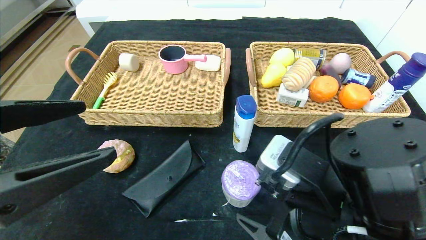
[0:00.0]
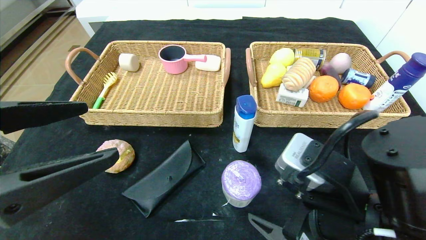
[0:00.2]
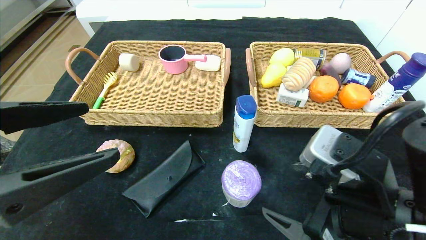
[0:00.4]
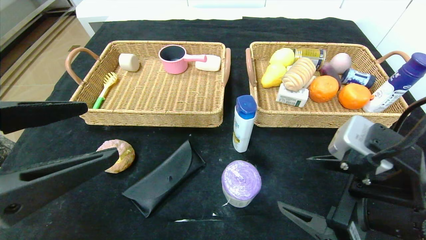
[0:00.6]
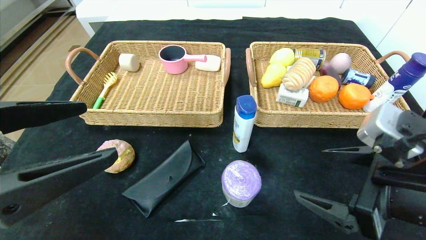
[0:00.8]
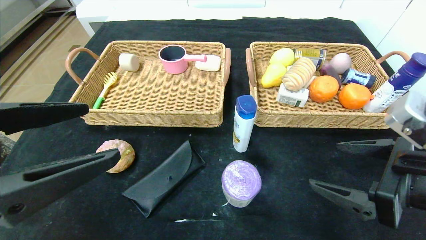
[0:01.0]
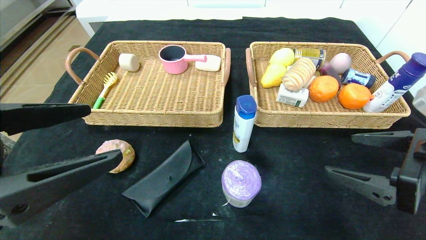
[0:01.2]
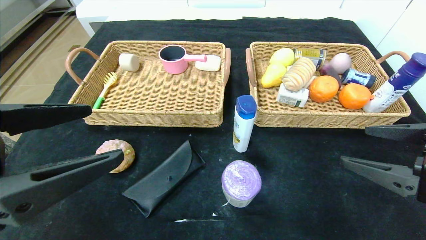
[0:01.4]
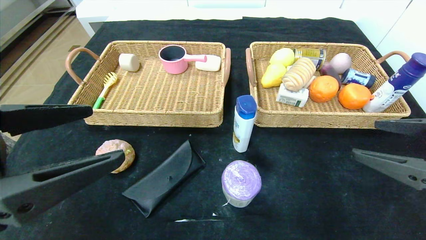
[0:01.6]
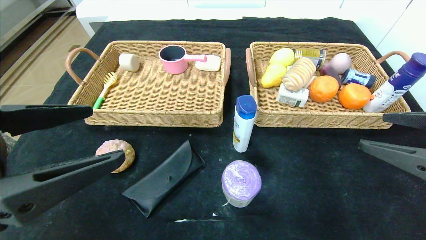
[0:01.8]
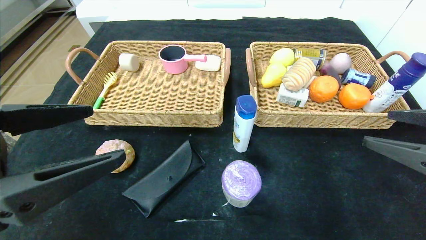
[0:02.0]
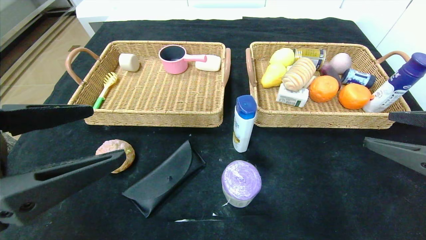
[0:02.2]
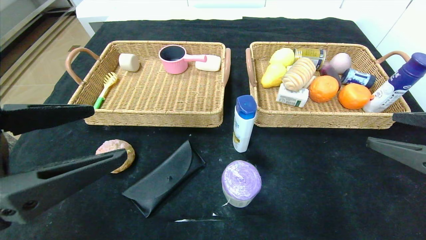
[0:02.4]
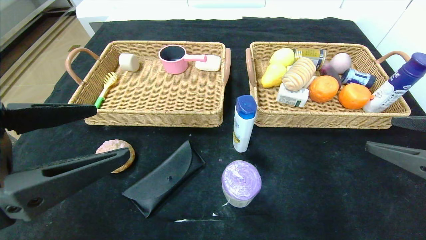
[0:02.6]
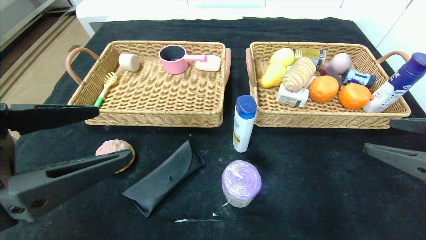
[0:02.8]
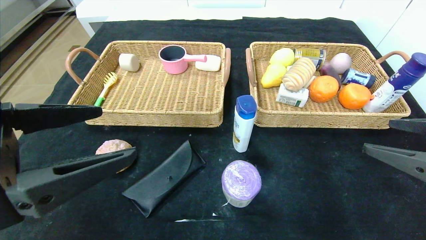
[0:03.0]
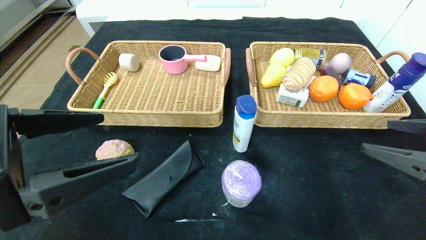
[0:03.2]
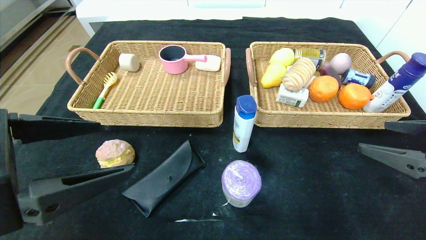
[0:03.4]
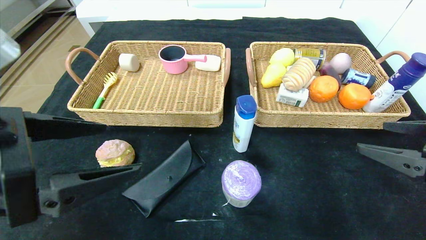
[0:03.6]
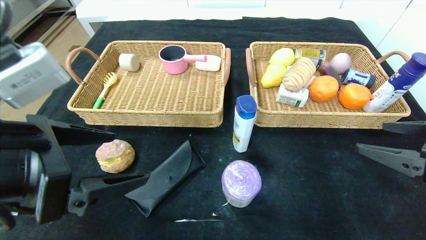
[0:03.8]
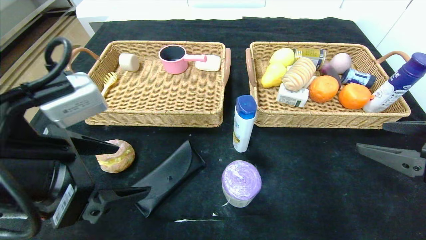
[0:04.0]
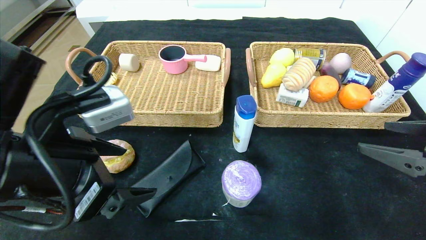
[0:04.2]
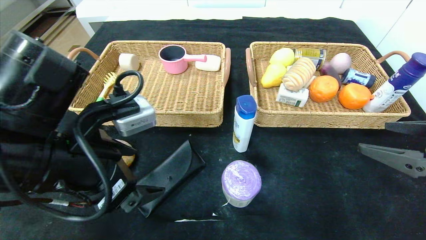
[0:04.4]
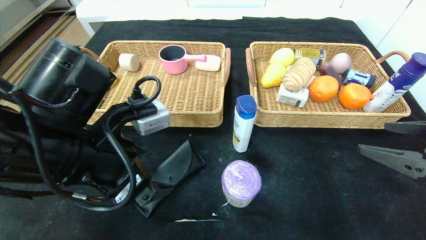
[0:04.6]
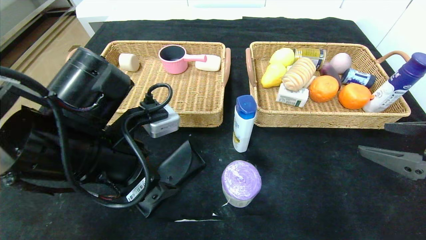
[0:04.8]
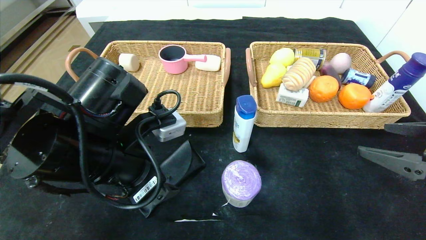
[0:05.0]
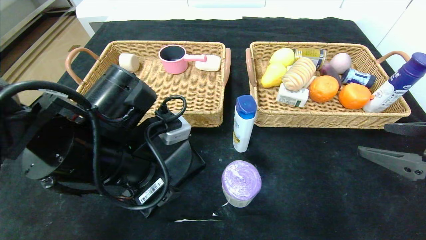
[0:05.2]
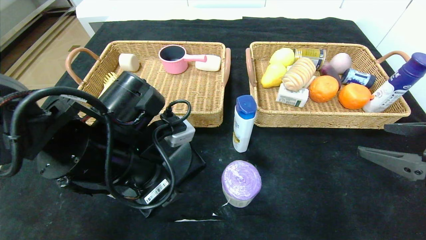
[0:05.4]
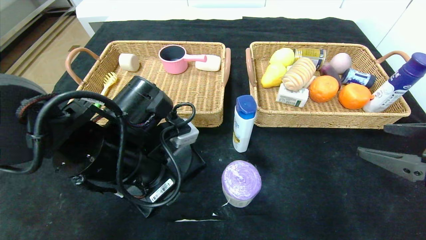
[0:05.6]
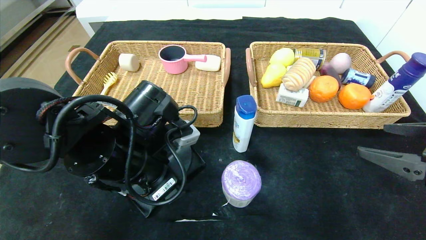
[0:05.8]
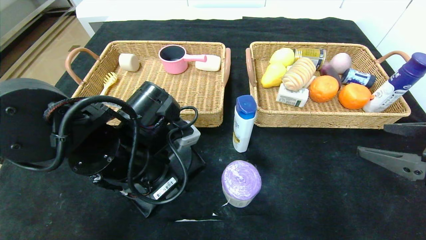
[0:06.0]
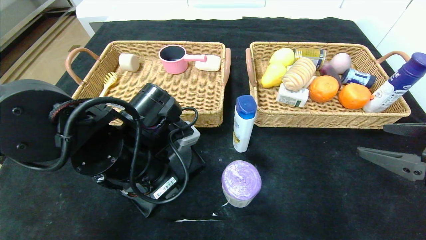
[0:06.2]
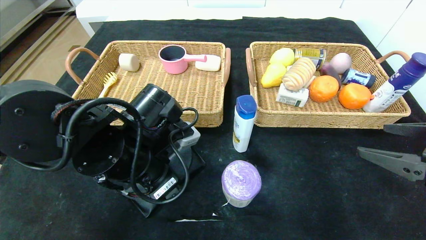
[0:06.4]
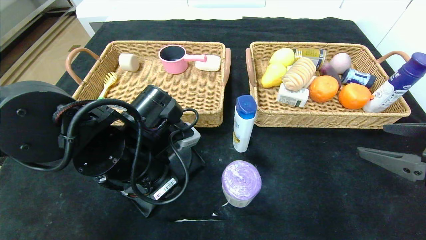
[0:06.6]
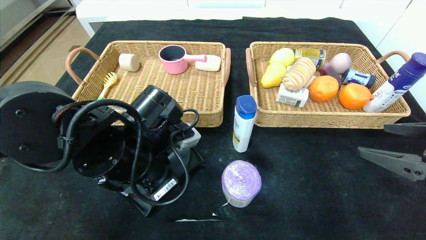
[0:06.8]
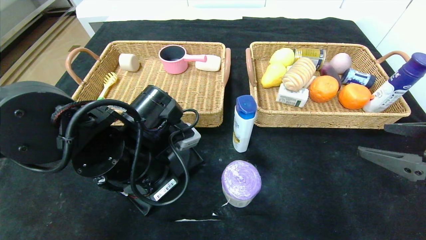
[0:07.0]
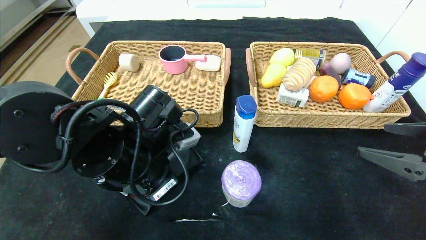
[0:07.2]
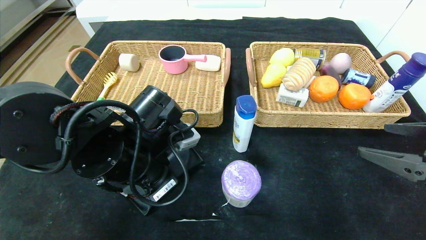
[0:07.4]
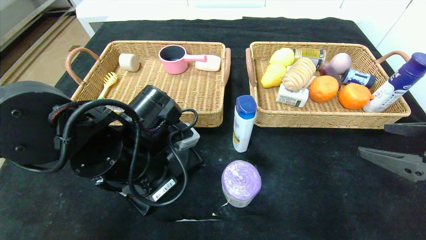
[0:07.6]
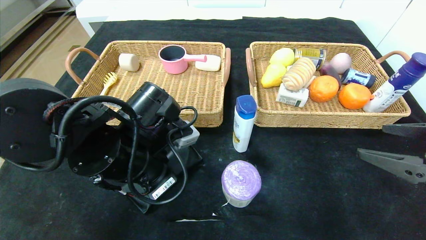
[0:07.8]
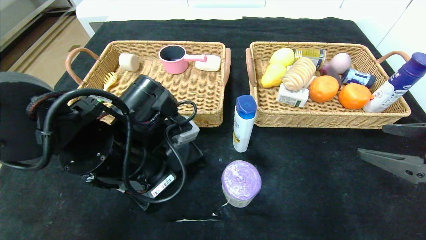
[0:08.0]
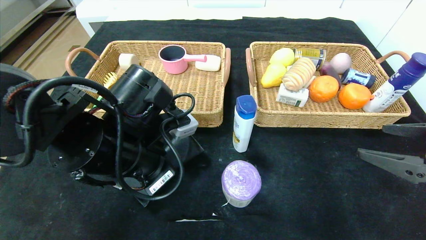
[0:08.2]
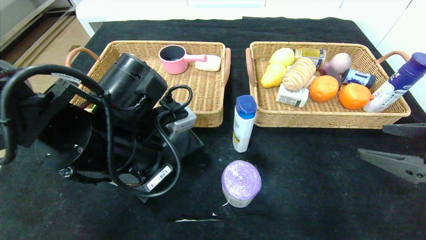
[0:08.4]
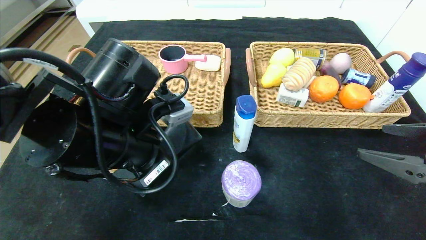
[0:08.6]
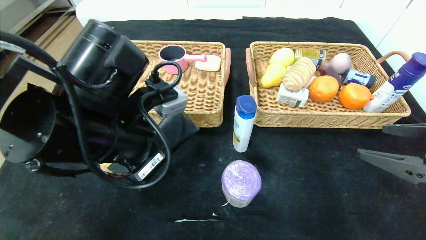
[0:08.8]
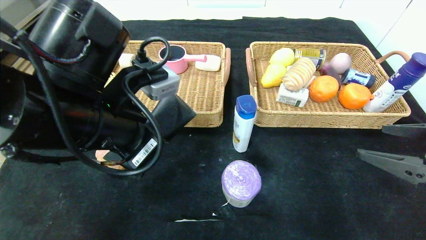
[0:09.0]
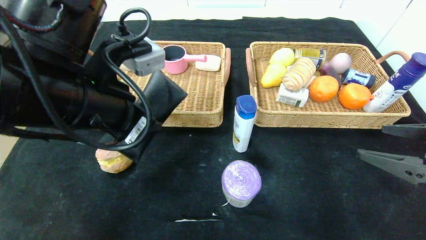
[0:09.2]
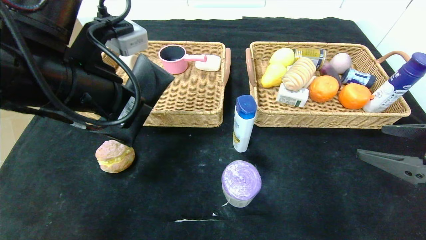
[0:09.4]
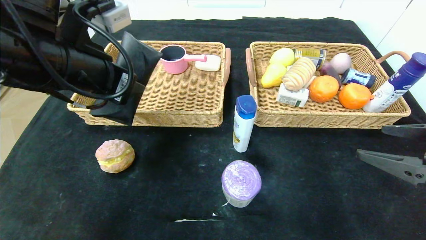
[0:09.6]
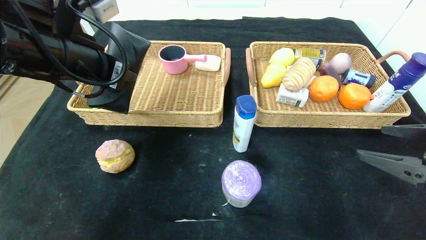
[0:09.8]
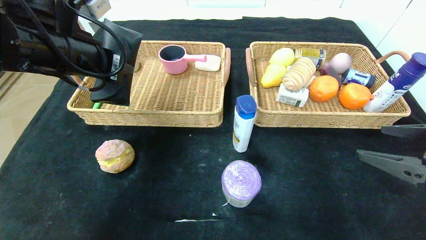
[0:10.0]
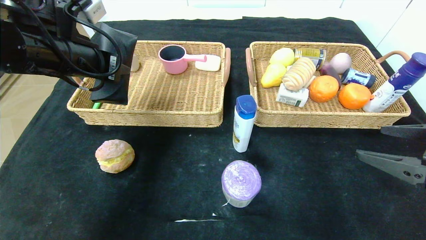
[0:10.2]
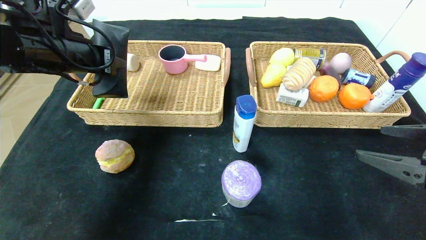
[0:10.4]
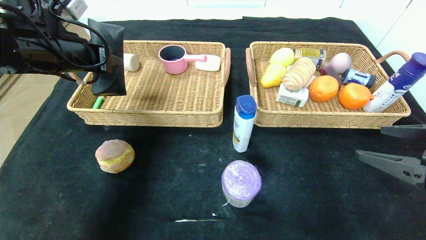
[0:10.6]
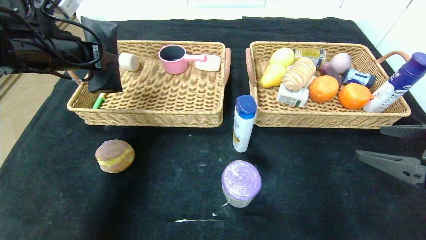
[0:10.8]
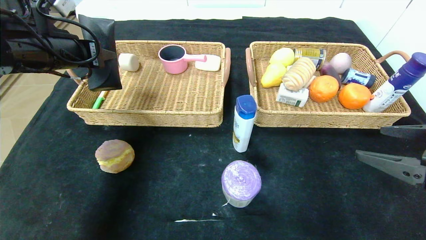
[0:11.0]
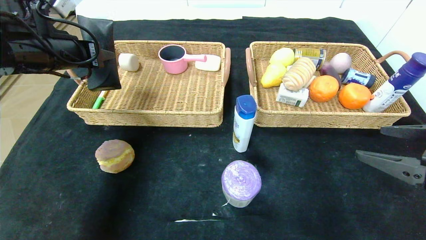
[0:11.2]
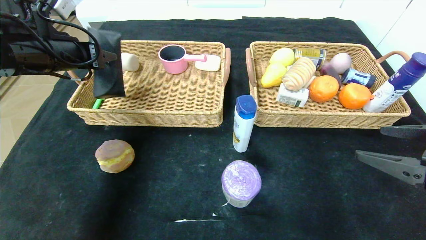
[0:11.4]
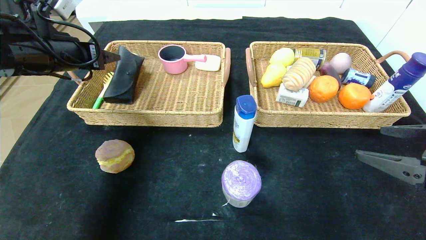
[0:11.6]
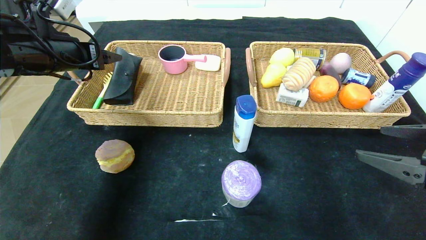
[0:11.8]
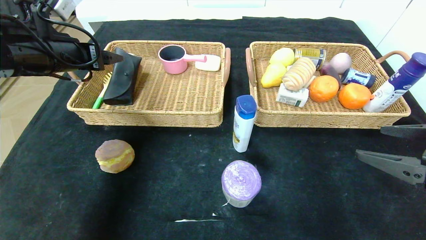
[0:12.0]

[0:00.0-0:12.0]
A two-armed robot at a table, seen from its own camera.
0:00.0 to 0:01.6: The right gripper is displaced to the right by some 15 cm.
0:01.6 to 0:03.0: The grippers make only small movements.
0:03.0 to 0:04.4: The left gripper moves forward, about 5 cm.
0:04.4 to 0:06.0: The left gripper moves forward, approximately 5 cm.
0:06.0 to 0:07.6: The left gripper closes.
0:07.6 to 0:09.0: The left gripper goes some 10 cm upward.
0:09.0 to 0:10.4: The left gripper moves forward and to the left, some 15 cm.
0:10.4 to 0:12.0: The left gripper opens up.

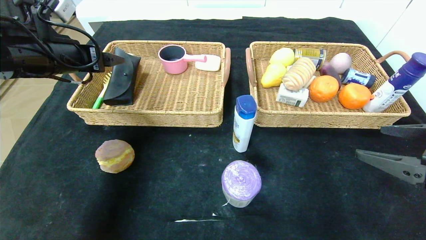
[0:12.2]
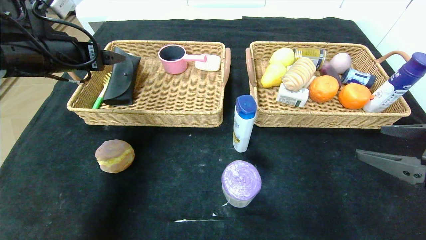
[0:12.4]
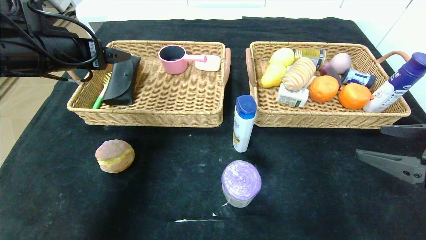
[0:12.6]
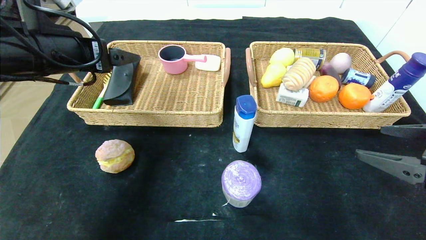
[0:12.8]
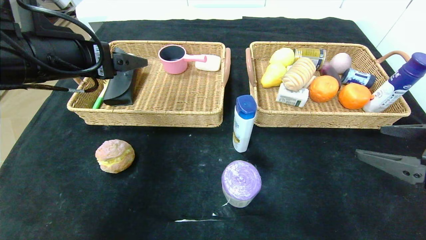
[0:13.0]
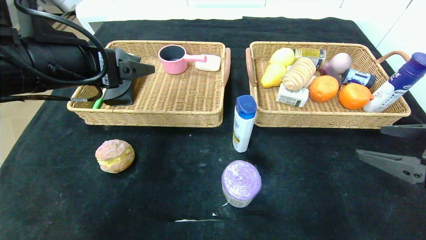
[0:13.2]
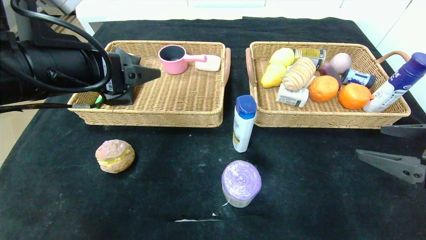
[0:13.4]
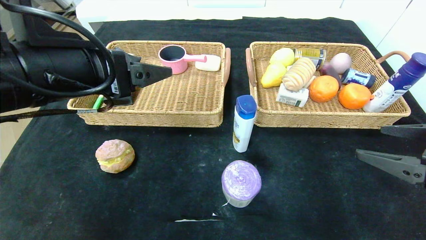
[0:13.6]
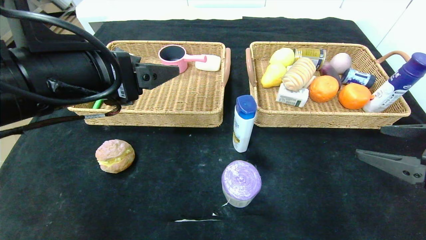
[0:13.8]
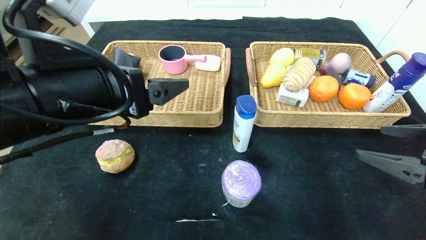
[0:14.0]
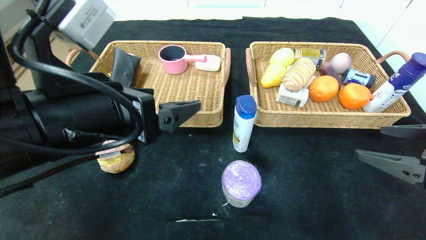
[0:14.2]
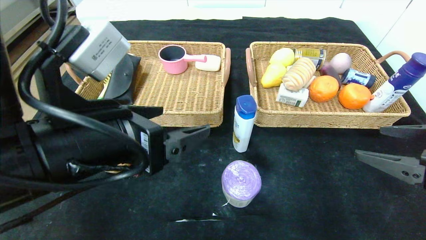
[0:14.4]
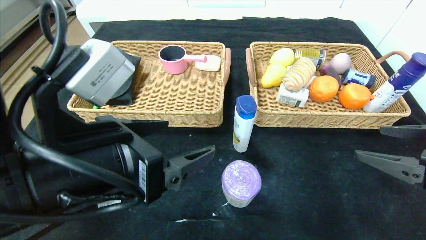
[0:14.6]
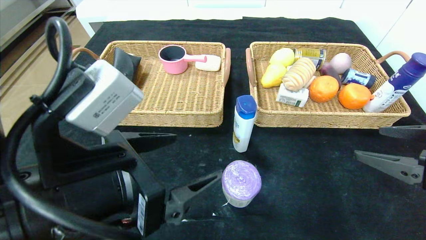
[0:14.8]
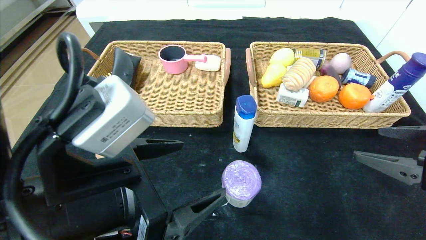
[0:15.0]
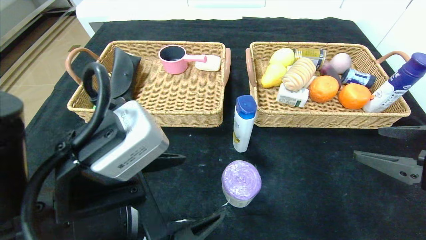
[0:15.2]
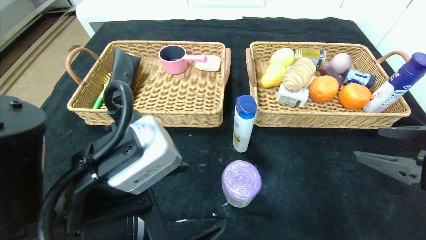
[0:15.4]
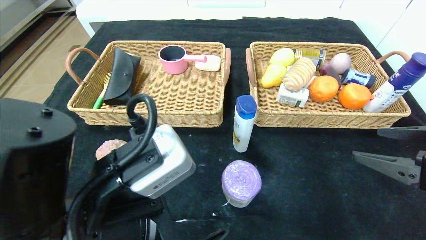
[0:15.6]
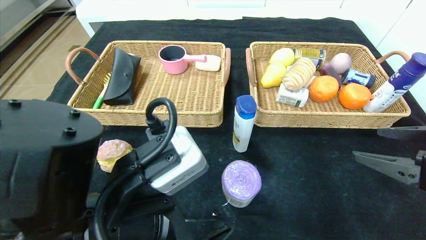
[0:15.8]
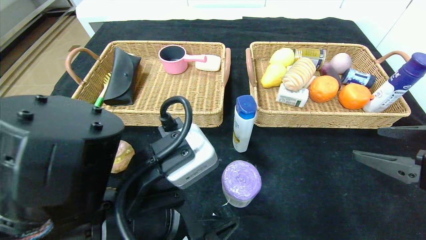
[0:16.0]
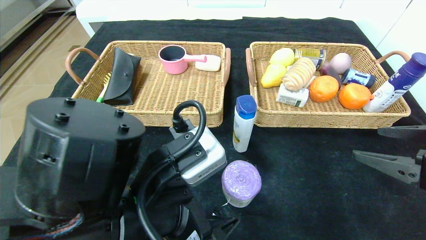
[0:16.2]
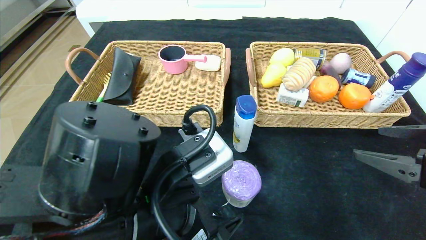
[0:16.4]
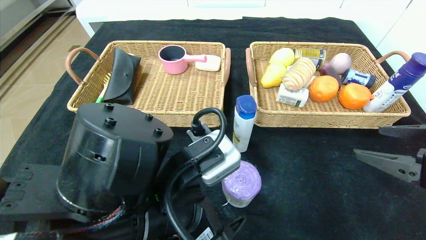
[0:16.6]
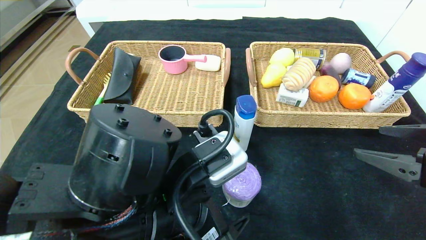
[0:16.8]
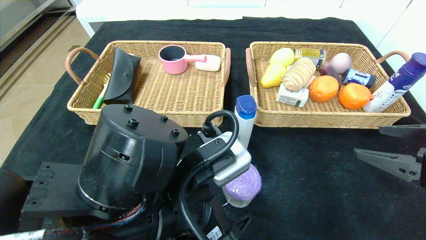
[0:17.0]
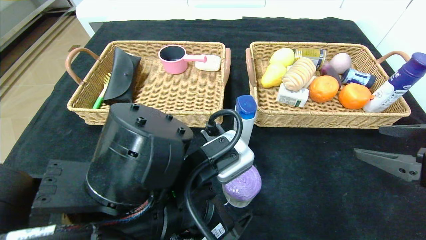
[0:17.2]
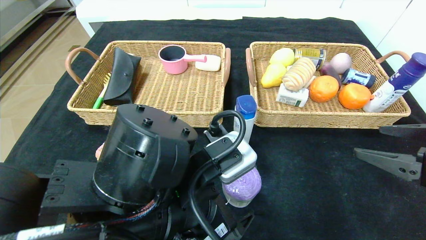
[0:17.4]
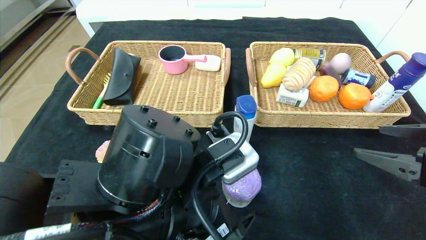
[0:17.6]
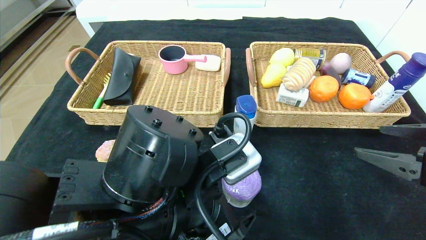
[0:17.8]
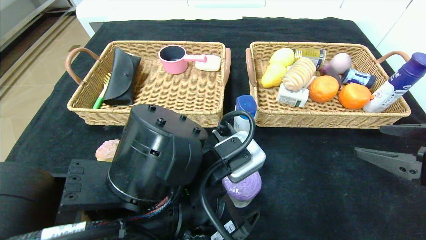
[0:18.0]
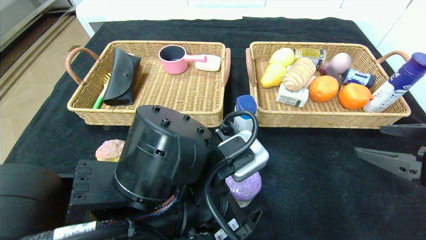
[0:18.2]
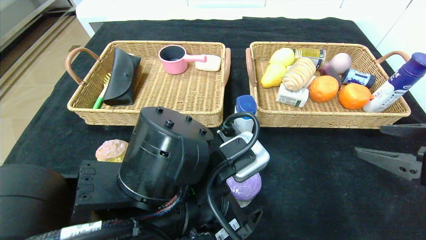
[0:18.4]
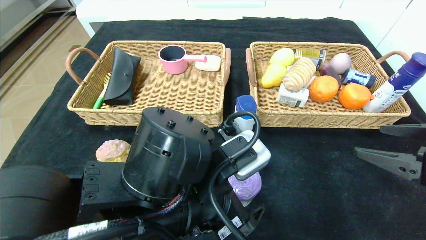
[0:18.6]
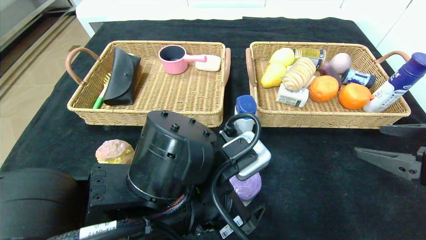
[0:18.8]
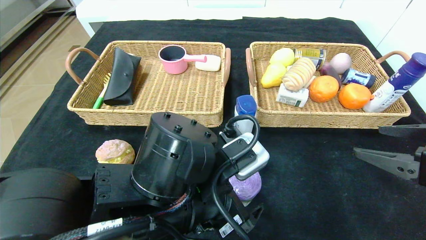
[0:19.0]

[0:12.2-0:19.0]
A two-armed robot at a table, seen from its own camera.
Step, 0:12.2 to 0:14.6: Pick up the glasses case and put it in the left basket.
0:12.2 to 0:13.6: The left gripper travels backward and to the right by about 20 cm.
0:13.6 to 0:15.0: The left gripper travels backward and downward by roughly 10 cm.
0:17.6 to 0:19.0: The grippers make only small movements.
